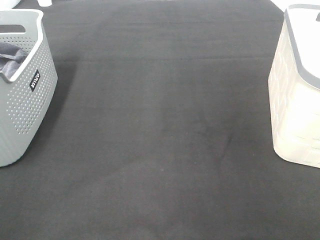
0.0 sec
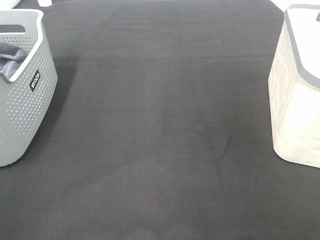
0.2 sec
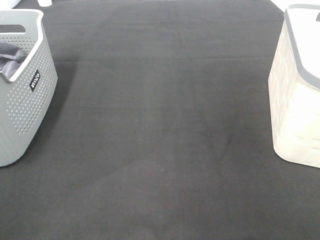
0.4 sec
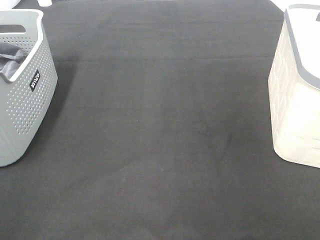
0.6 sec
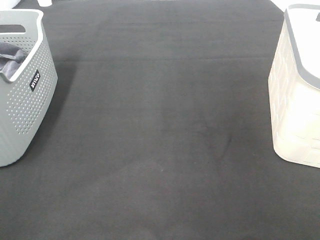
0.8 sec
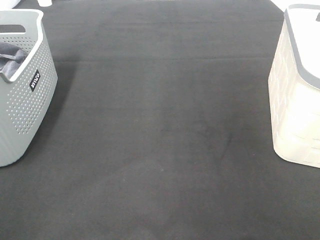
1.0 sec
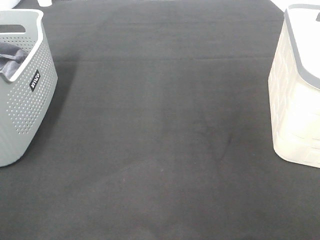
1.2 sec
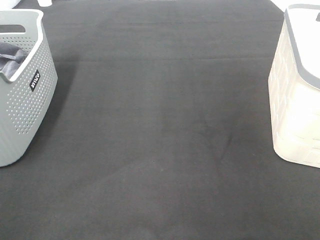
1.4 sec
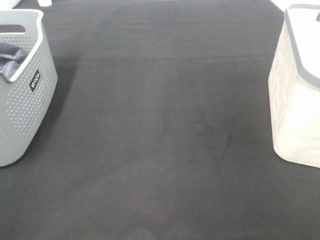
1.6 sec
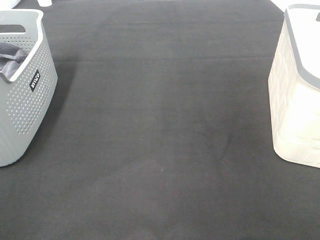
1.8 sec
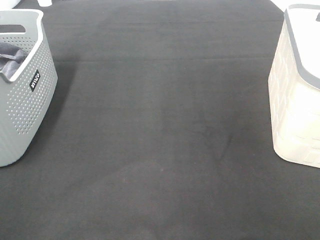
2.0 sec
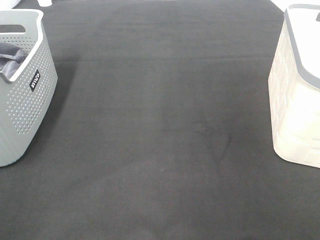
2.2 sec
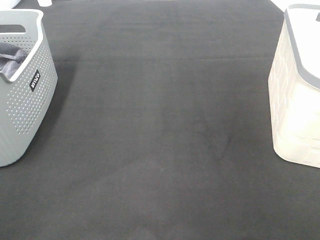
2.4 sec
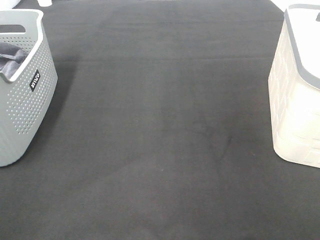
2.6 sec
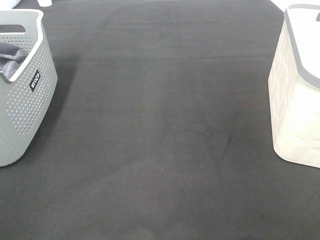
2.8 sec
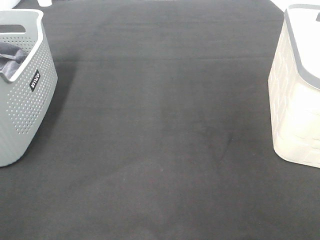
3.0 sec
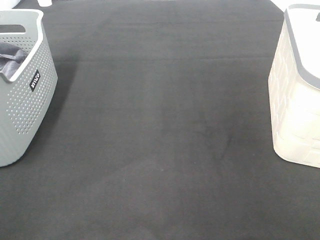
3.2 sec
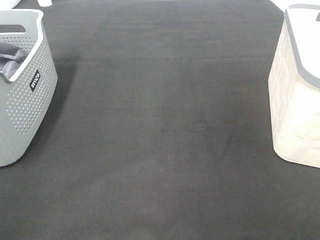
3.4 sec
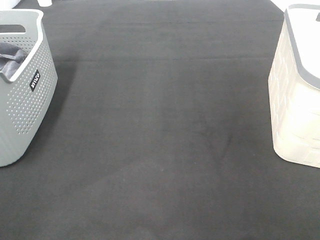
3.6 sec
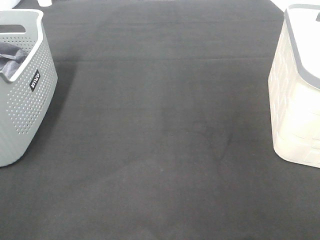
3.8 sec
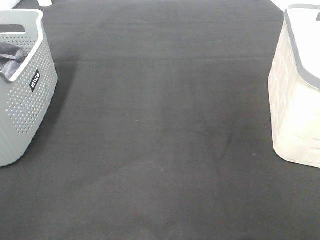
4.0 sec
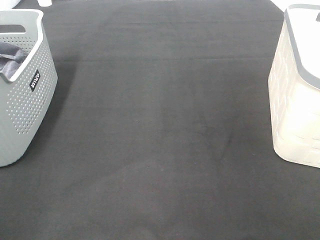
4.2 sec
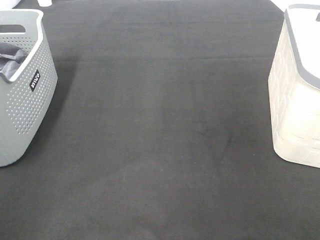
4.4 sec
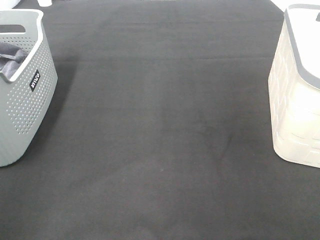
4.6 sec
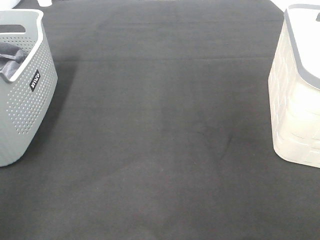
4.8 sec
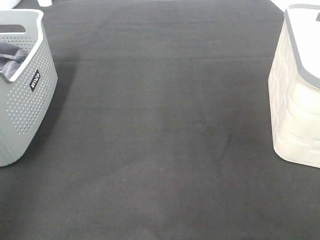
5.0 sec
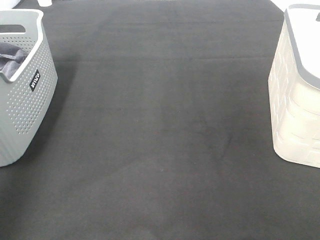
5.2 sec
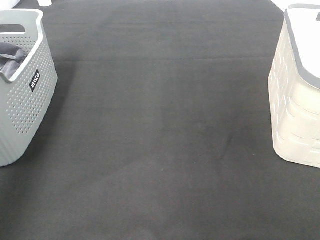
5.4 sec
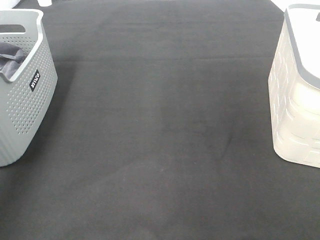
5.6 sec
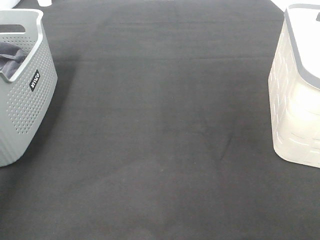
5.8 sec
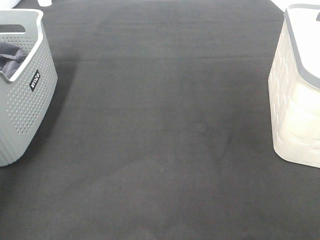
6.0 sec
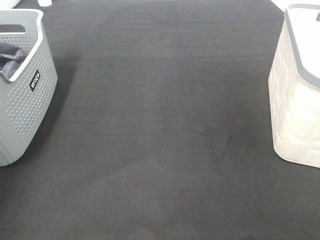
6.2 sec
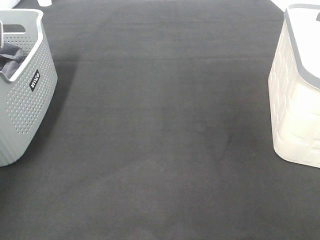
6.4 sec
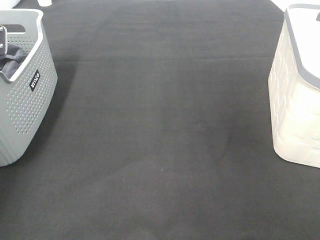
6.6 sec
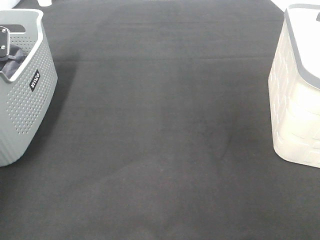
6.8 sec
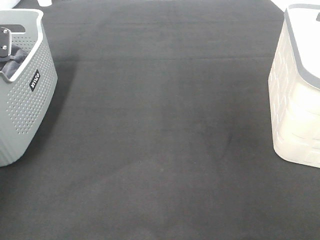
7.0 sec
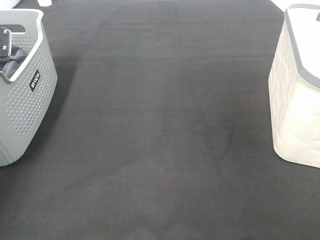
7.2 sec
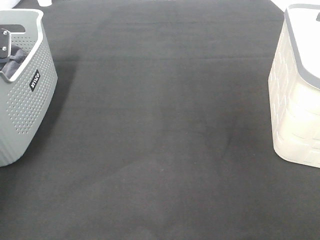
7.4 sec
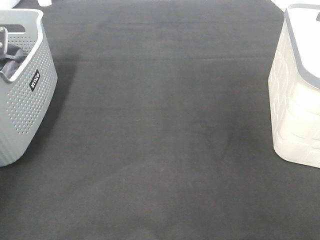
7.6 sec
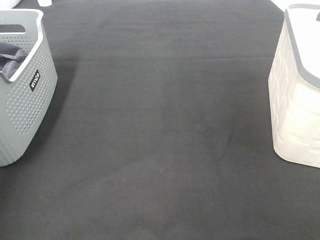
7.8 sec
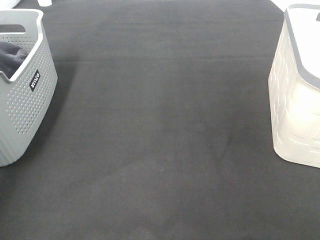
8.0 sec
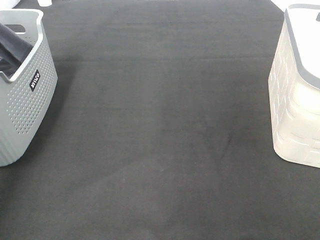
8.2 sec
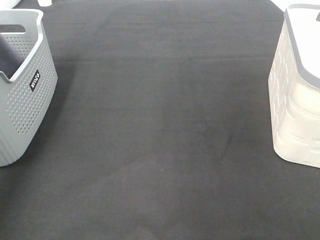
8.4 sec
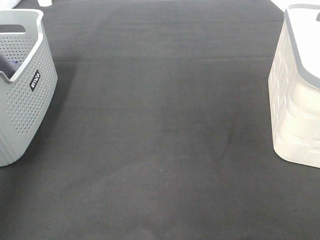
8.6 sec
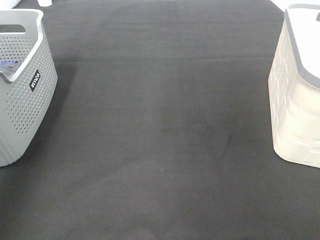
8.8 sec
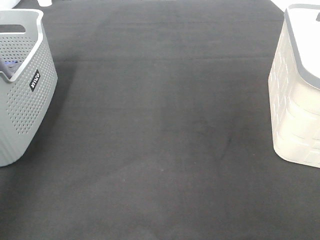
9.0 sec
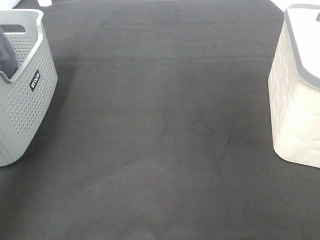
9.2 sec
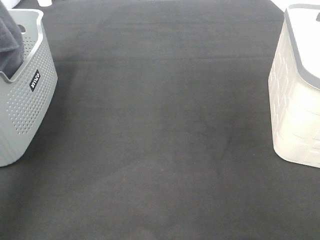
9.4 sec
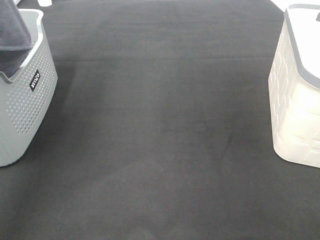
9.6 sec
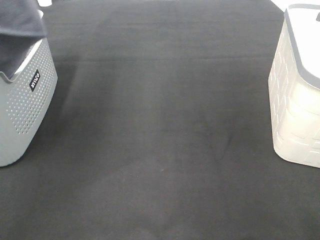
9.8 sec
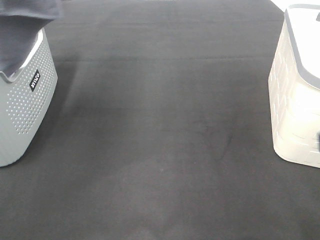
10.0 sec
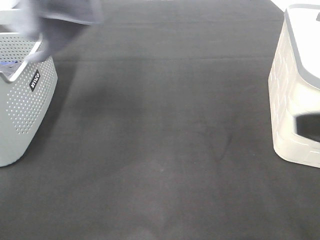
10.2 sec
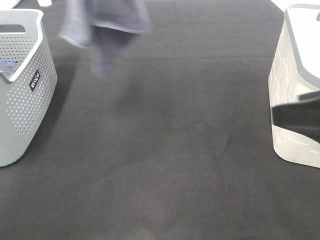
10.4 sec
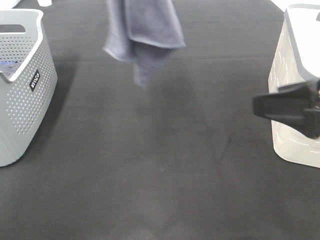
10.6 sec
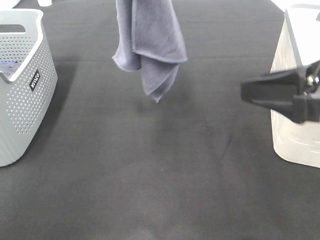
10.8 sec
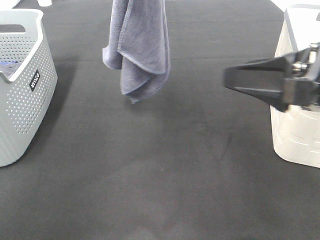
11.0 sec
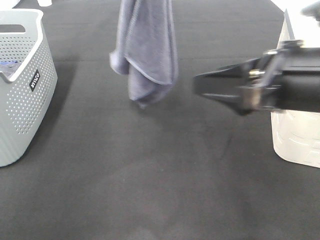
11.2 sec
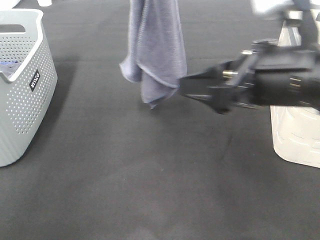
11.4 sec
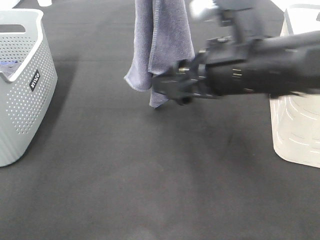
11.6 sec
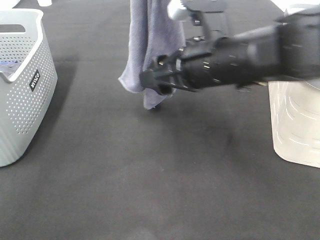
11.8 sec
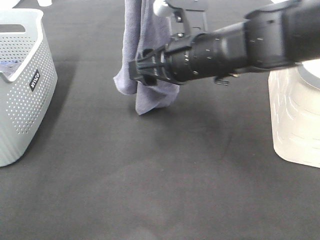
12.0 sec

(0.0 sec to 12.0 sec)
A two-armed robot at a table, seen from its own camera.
Task of the whole recording: Remove the towel and place it.
0.0 sec - 3.0 sec: Both grippers stay put.
4.4 sec - 6.0 sec: The left gripper moves forward, some 40 cm.
7.6 sec - 9.0 sec: The left gripper heads upward and backward, covering about 35 cm.
9.0 sec - 10.4 sec: The left gripper is displaced to the right by about 20 cm, while the right gripper goes some 15 cm forward.
10.4 sec - 12.0 sec: The right gripper moves forward and to the left, some 25 cm. The left gripper is displaced downward and to the right by some 10 cm.

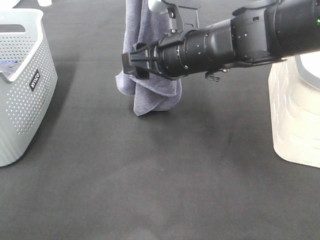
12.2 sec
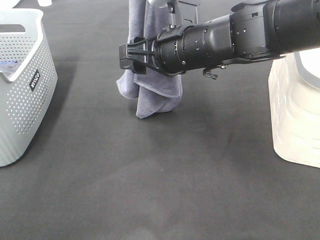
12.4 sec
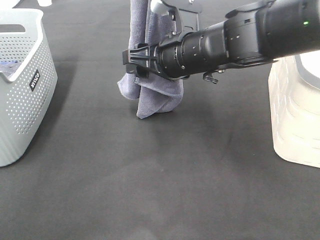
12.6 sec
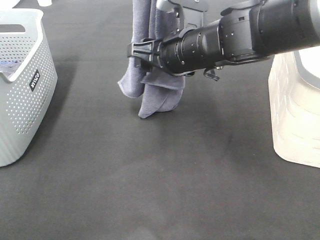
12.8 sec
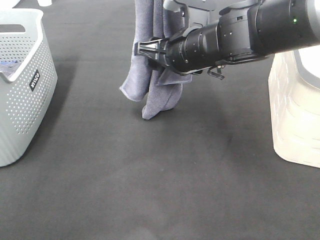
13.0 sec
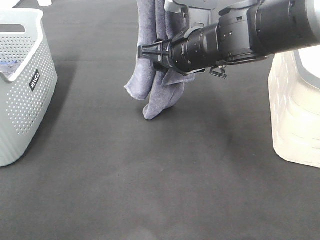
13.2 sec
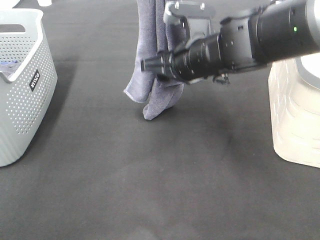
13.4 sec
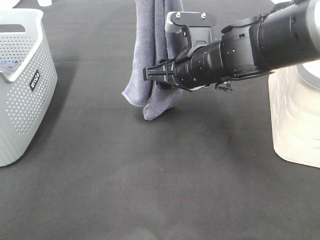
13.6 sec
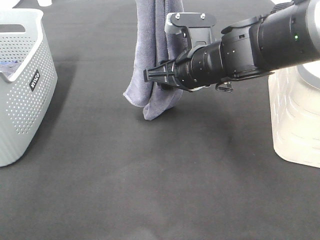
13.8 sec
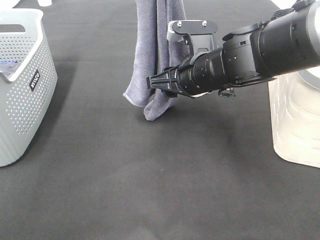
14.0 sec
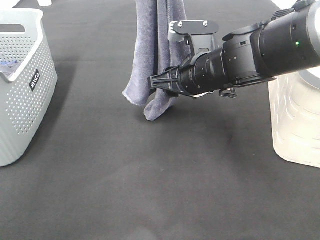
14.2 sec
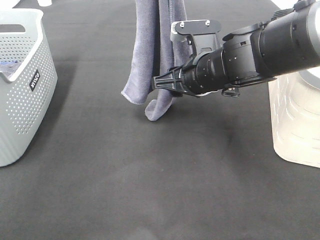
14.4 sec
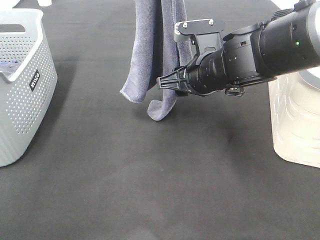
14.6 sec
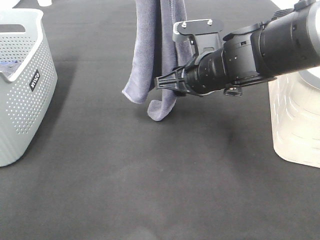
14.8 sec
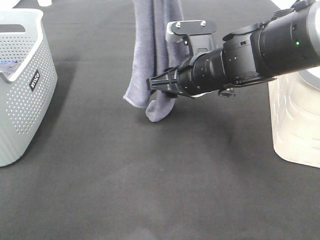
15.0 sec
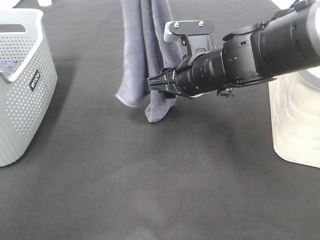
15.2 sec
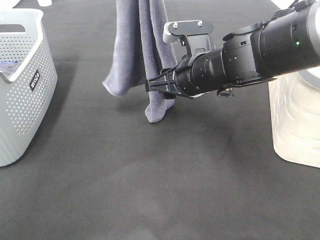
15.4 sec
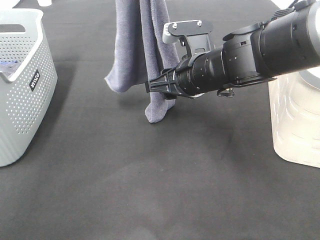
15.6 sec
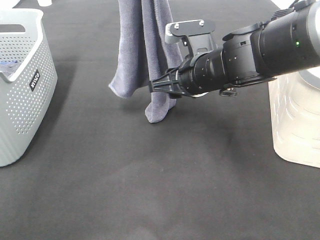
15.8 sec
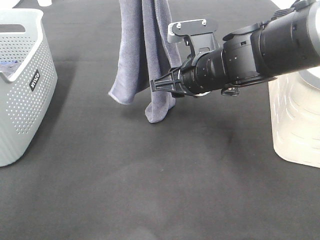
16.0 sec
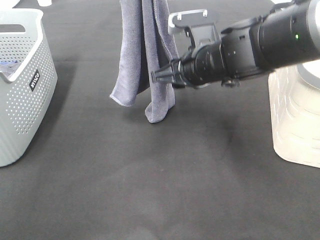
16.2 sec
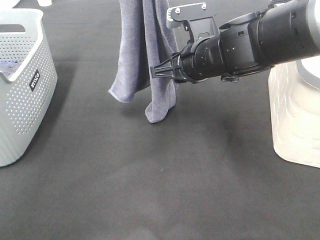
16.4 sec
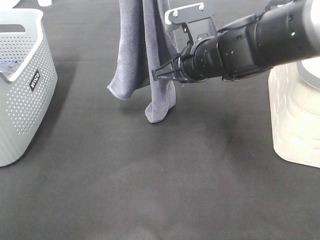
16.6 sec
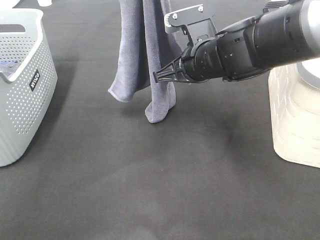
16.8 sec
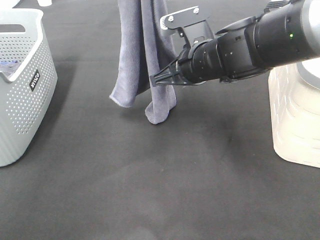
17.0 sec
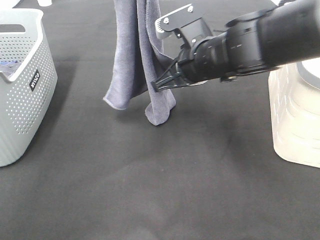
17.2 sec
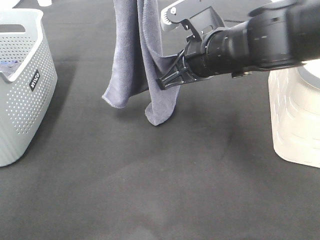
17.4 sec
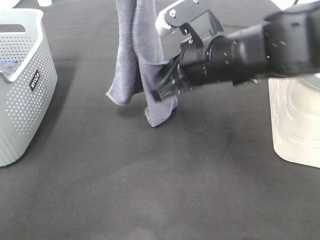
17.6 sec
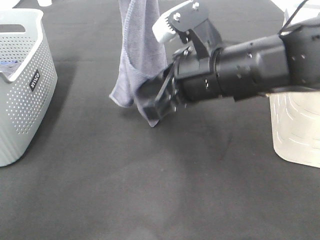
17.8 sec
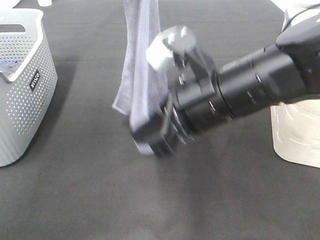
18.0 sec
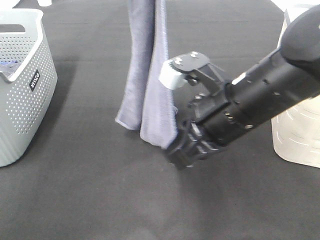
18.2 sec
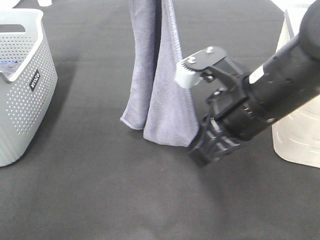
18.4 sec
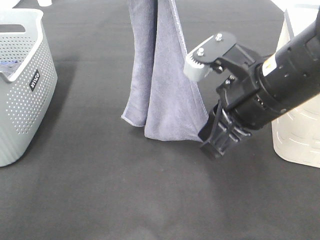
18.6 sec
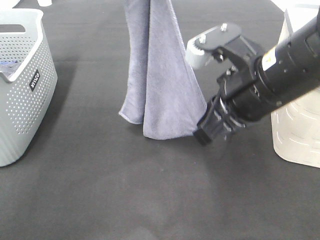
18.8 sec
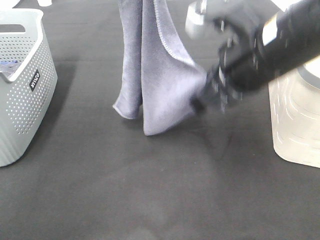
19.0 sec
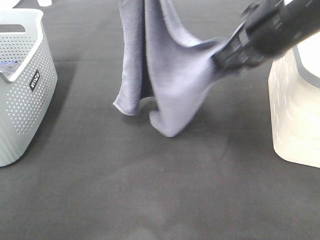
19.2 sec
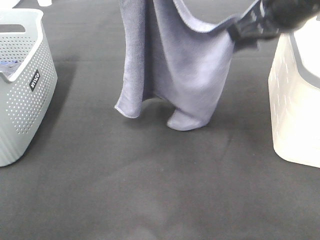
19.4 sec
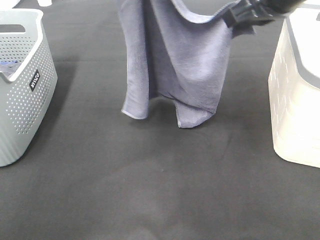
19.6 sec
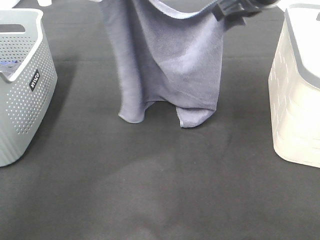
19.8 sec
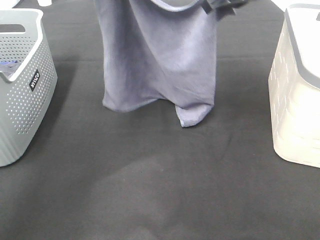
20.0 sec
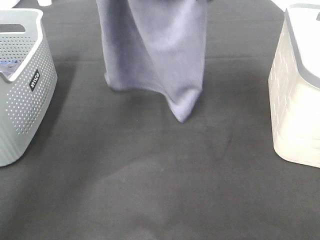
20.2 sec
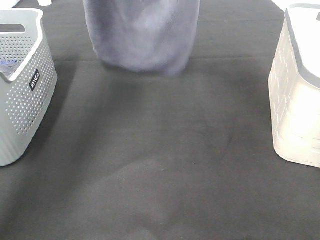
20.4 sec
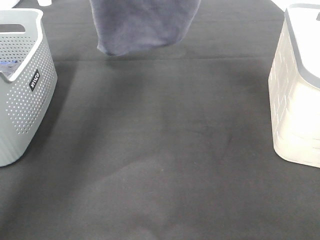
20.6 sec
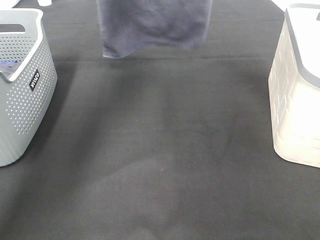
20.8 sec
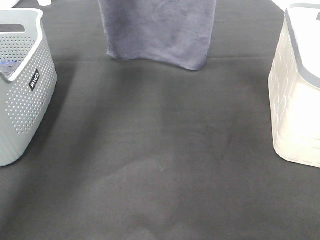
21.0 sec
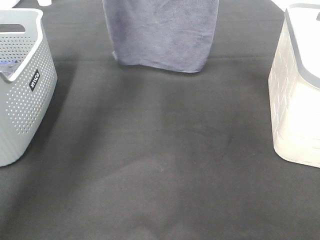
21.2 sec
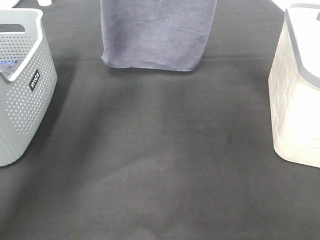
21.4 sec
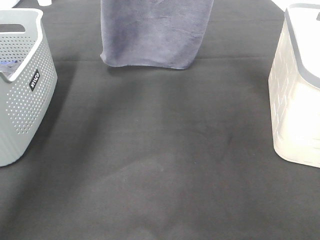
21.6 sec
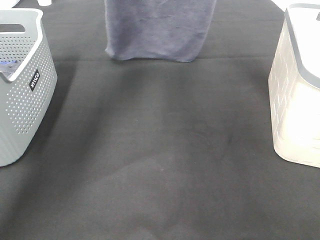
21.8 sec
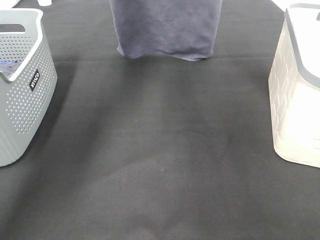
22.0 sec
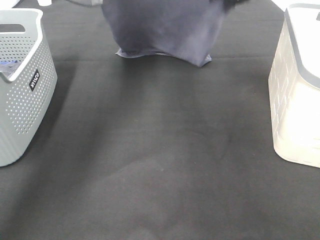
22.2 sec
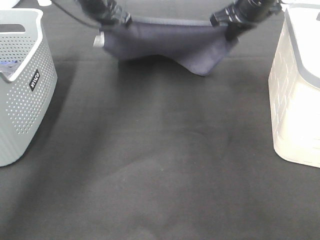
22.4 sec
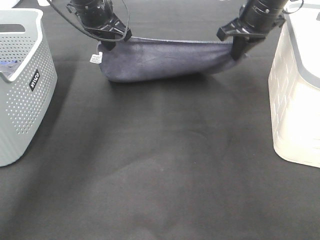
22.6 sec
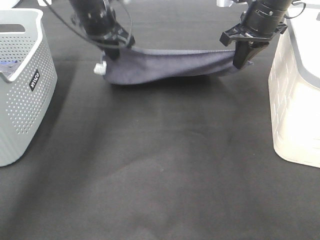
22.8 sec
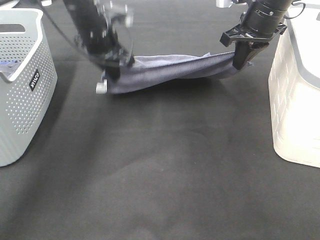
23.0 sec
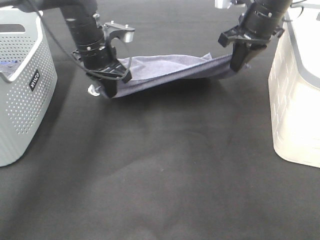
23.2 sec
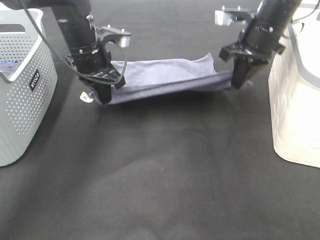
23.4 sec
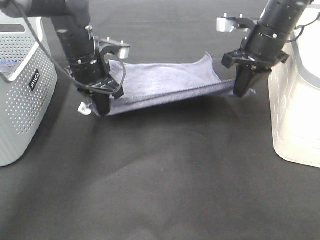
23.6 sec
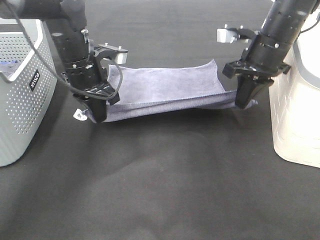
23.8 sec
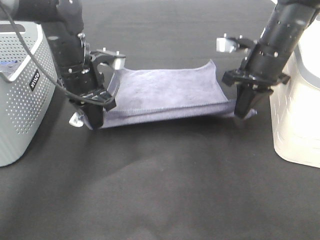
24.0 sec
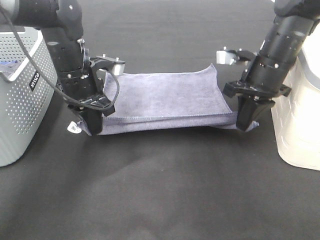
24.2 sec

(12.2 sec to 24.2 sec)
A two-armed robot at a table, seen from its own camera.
Task of the whole recording: Remove the towel and place it.
Step, 12.2 sec - 16.4 sec: Right hand: grab a corner of the grey towel and straighten it.
Step, 16.6 sec - 20.8 sec: Right hand: spread the grey towel flat on the table.
Step, 16.6 sec - 22.8 sec: Left hand: spread the grey towel flat on the table.
12.2 sec - 13.8 sec: The grippers make only small movements.
13.8 sec - 15.2 sec: There are only small adjustments of the grippers.
15.2 sec - 16.6 sec: The right gripper closes up.
16.6 sec - 18.2 sec: The right gripper shifts about 10 cm backward.
18.2 sec - 19.8 sec: The left gripper moves forward, approximately 5 cm; the right gripper travels forward and upward by about 20 cm.
19.8 sec - 21.2 sec: The two grippers go about 15 cm forward.
21.2 sec - 22.6 sec: Both grippers move downward, roughly 10 cm.
22.6 sec - 24.2 sec: The two grippers go approximately 15 cm backward and downward.
